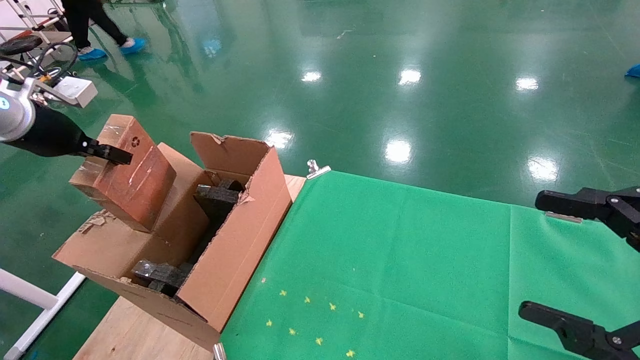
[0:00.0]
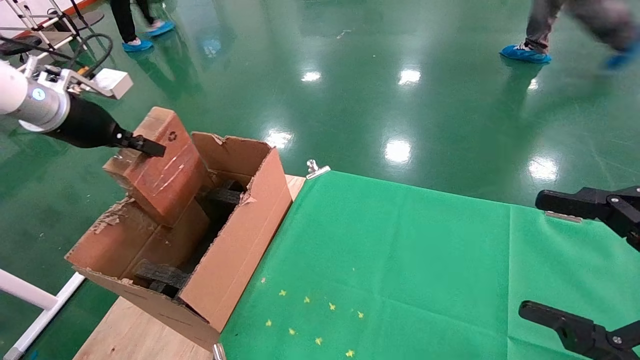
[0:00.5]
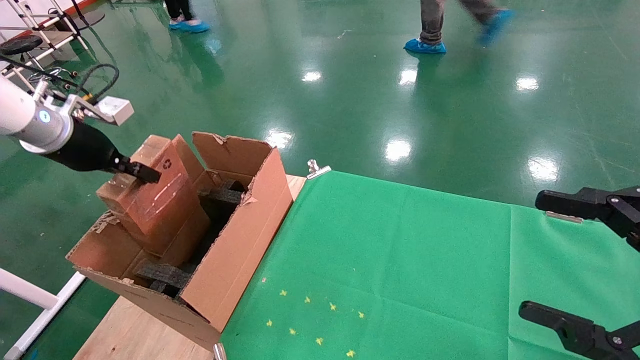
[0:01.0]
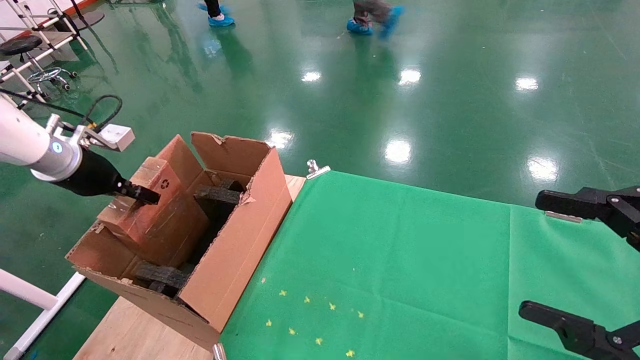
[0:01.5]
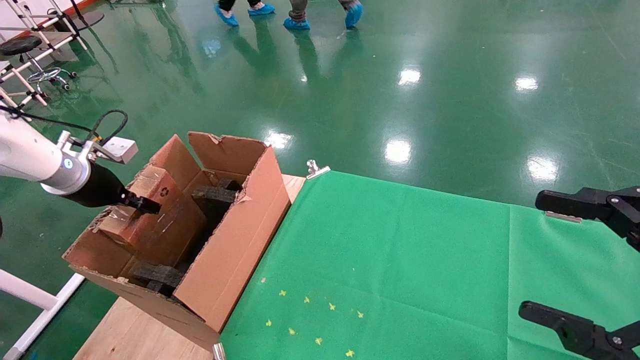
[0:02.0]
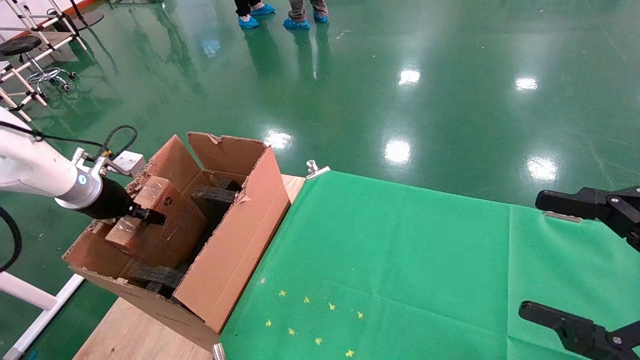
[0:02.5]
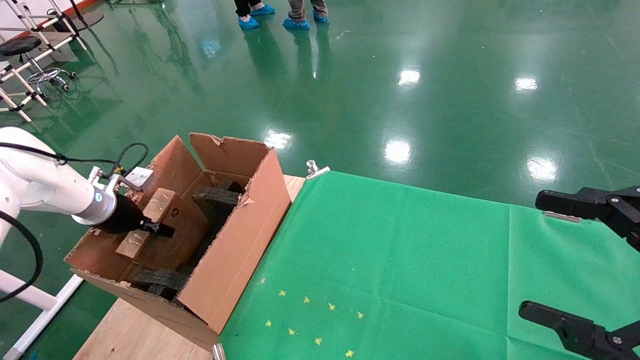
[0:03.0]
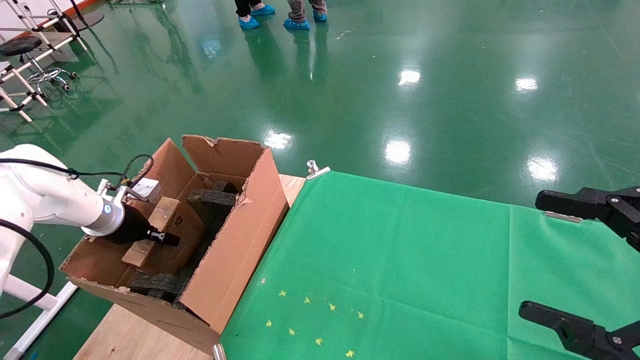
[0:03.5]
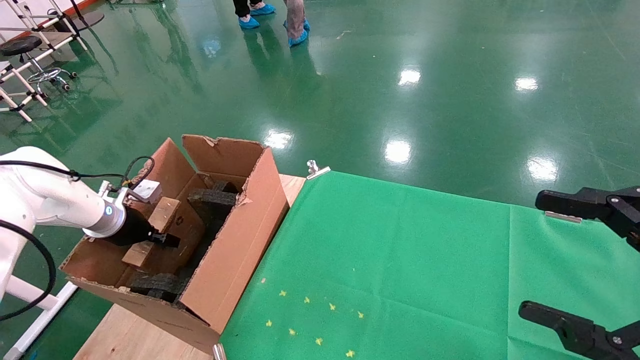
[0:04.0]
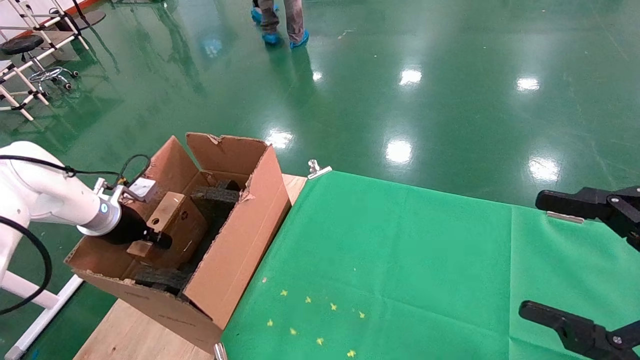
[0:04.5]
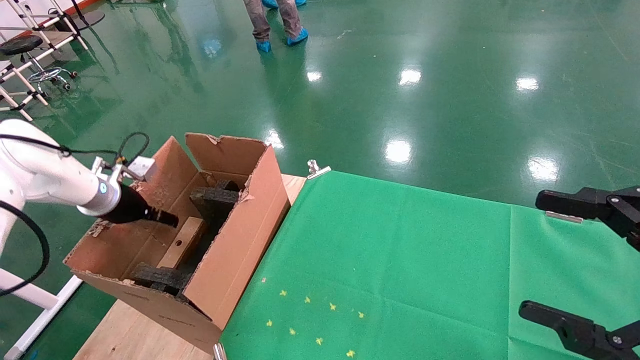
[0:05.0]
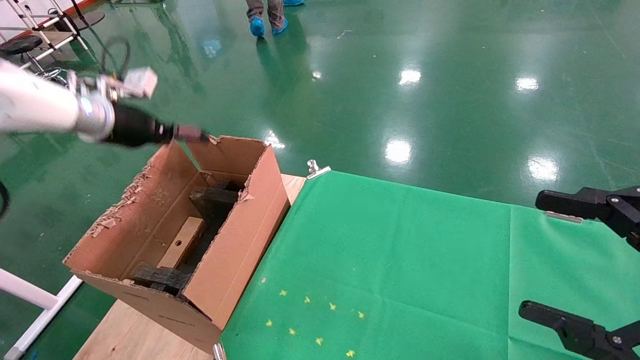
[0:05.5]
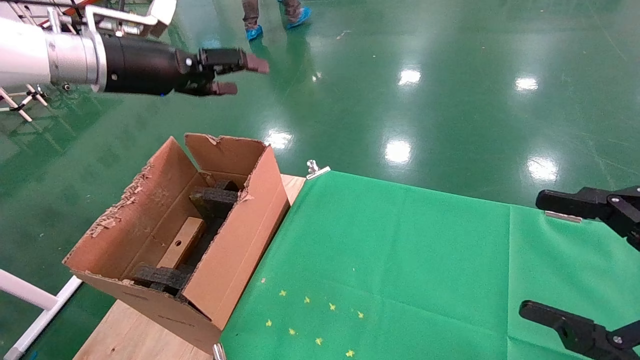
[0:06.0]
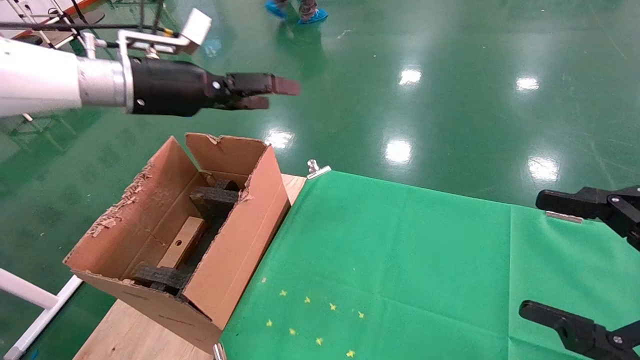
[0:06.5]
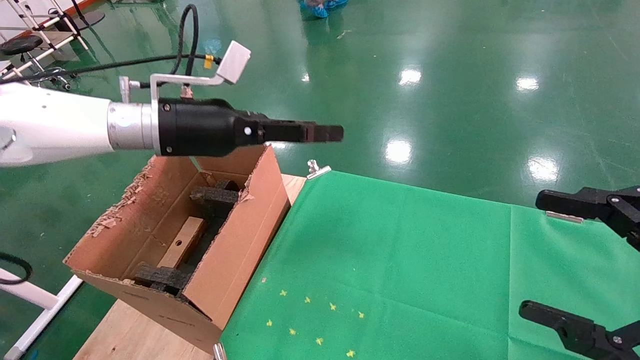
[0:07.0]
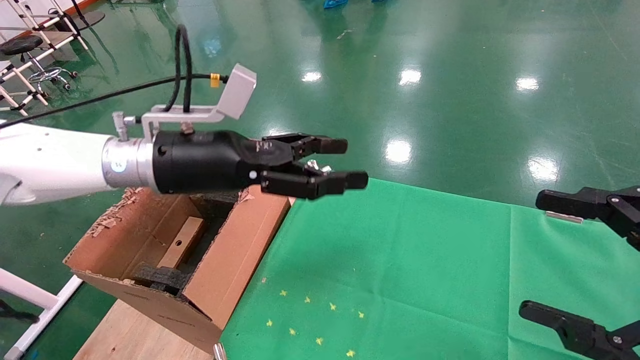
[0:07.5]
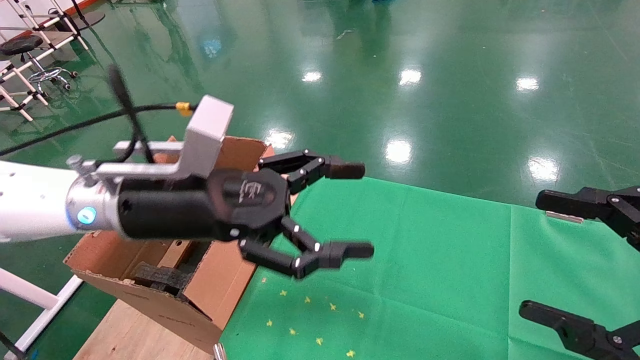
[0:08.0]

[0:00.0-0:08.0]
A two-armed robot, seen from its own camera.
Task of the whole recording: using a robotic arm to pick up a cardboard box and palace it the carton.
Step, 0:00.0 to 0:05.5: Place the mouse and the power cord paper box into the container.
0:00.0 to 0:02.0: The left gripper heads downward, covering approximately 10 cm.
0:02.0 to 0:04.0: The left gripper heads downward, covering roughly 10 cm.
0:04.0 to 0:06.0: The left gripper heads upward and to the right, covering some 30 cm, and opens up.
0:06.0 to 0:08.0: The left gripper heads to the right, downward and backward, covering about 20 cm.

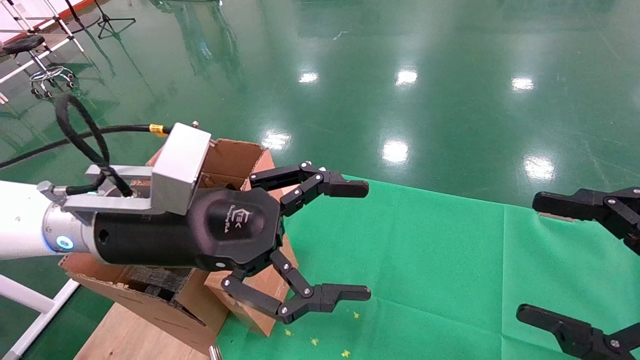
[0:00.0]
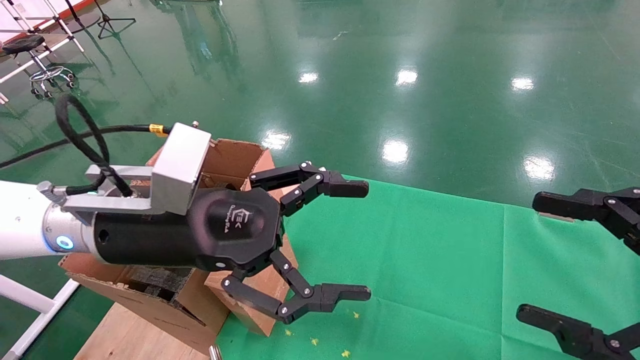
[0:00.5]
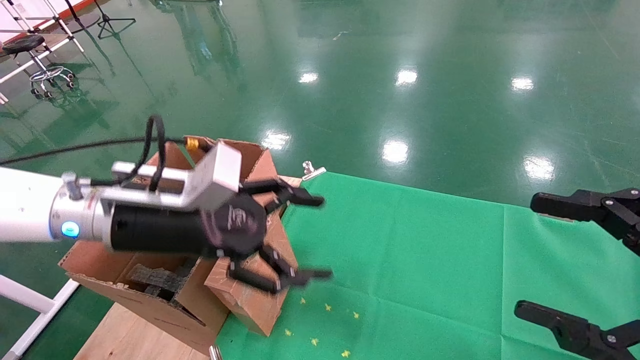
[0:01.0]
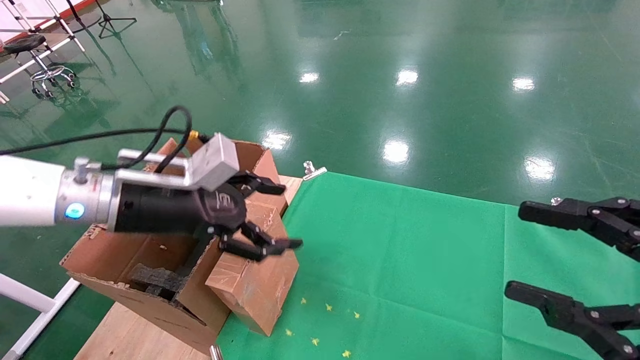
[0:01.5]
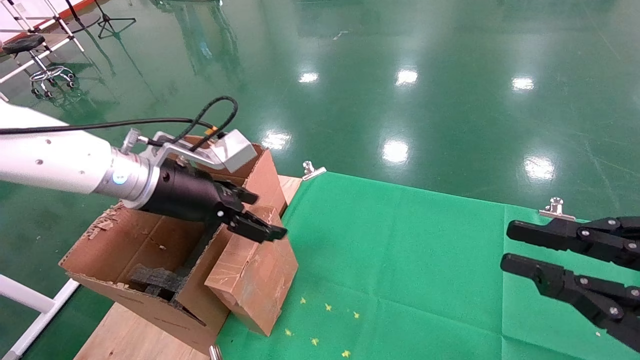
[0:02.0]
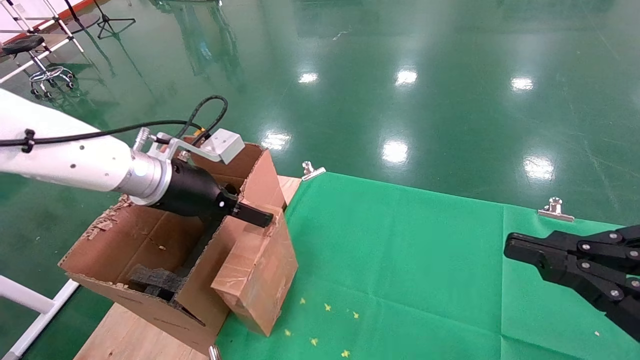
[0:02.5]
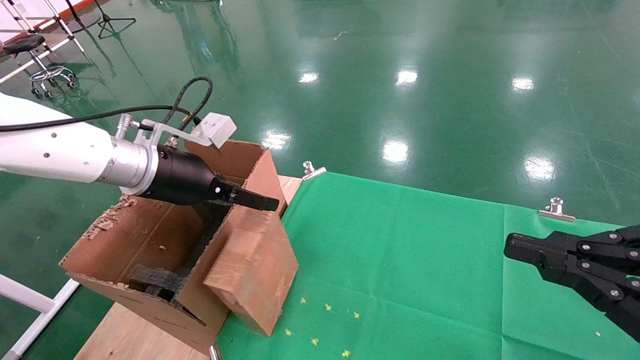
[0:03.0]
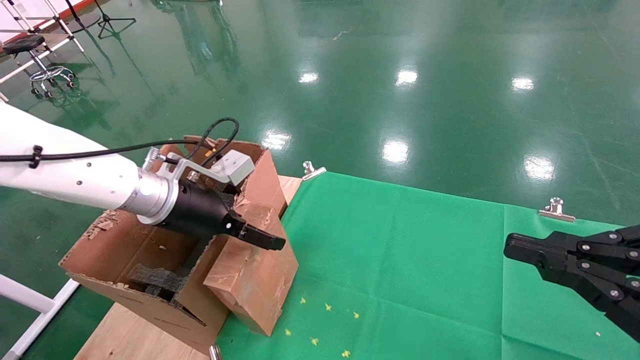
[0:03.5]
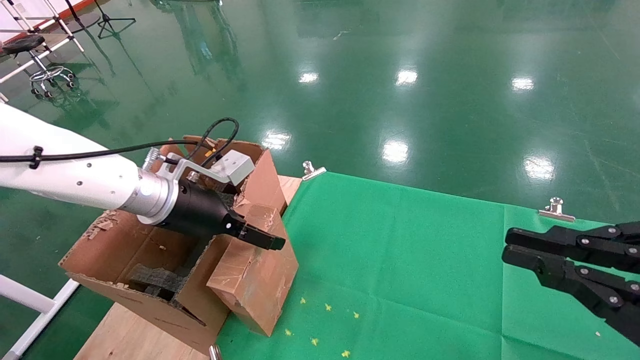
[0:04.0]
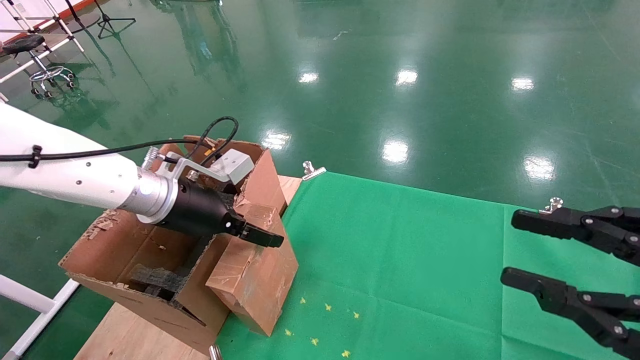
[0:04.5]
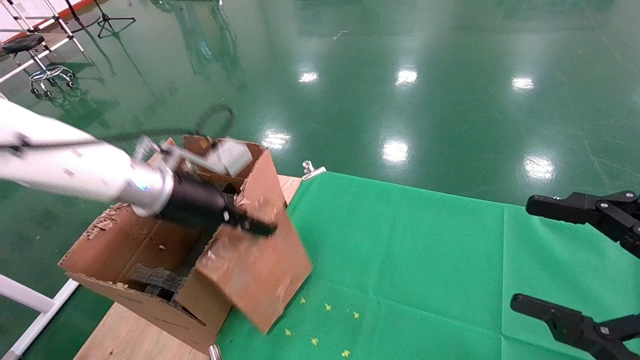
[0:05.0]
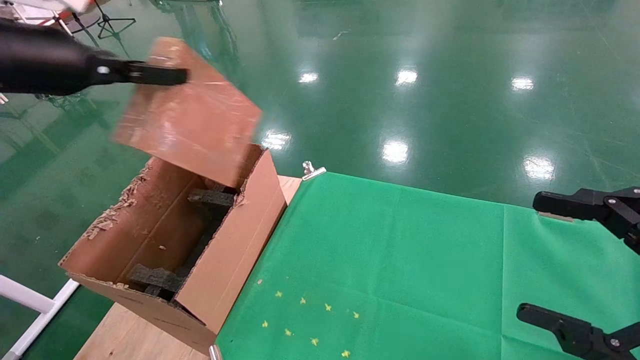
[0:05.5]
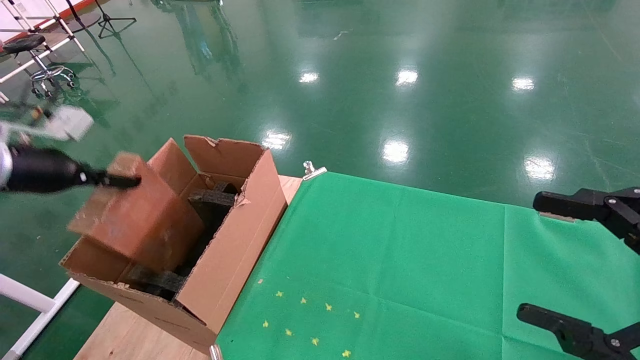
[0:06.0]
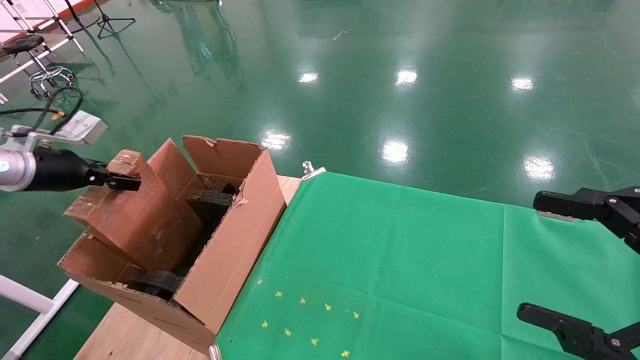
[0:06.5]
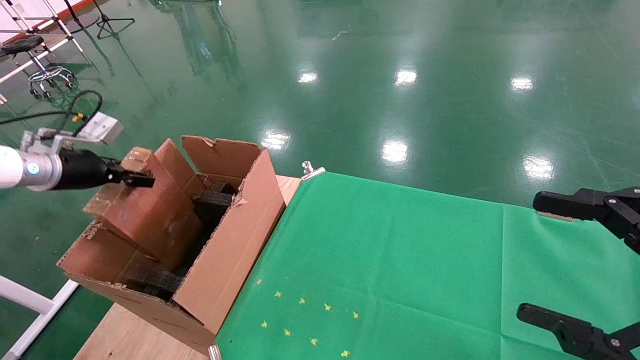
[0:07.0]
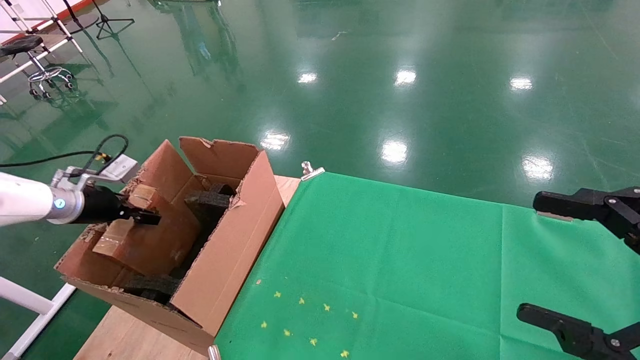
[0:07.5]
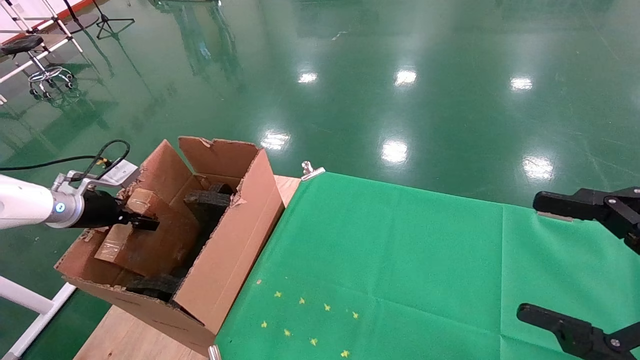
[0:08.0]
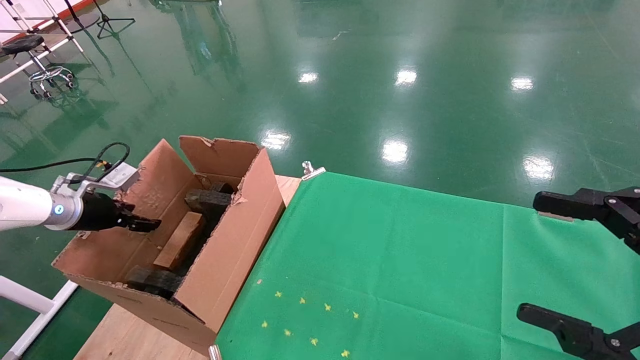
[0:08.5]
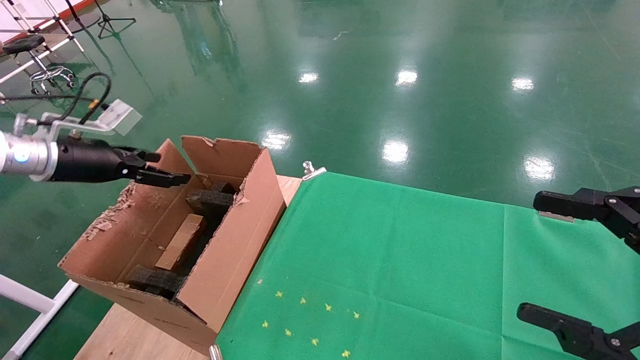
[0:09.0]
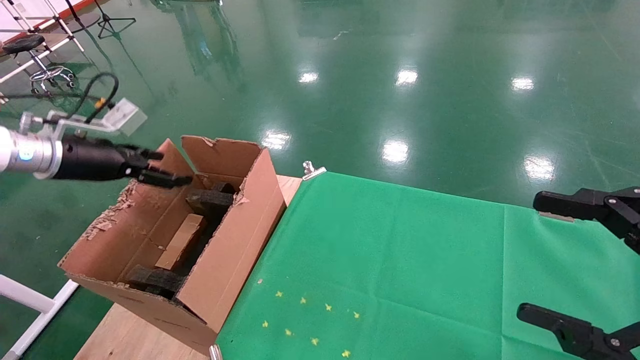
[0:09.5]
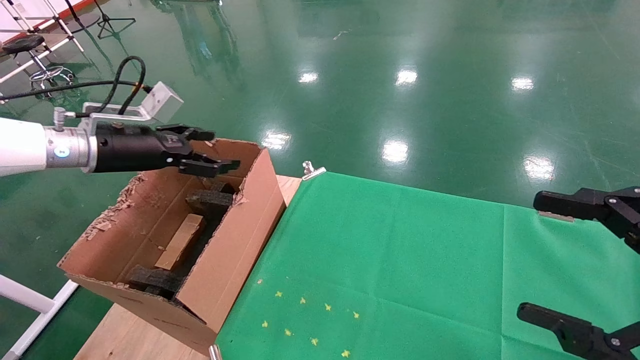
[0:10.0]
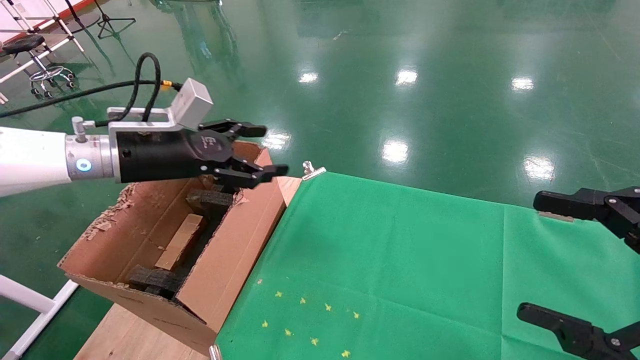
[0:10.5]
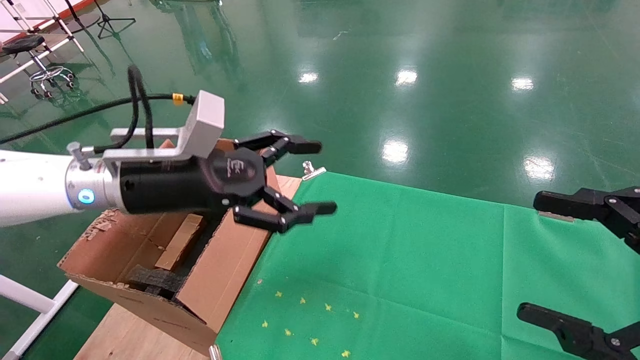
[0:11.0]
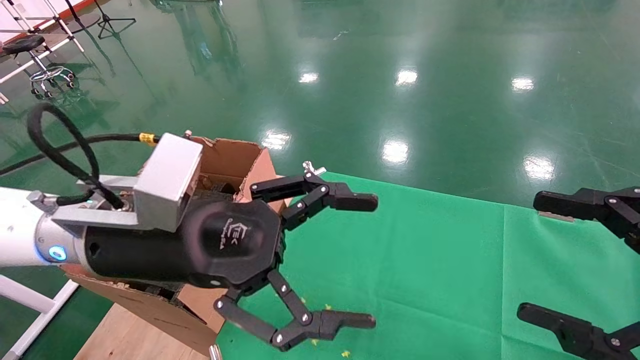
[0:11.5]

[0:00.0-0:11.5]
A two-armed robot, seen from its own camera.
Task of the whole recording: using a robotic arm to pick up a cardboard box and palace it the carton.
Step, 0:01.0 to 0:05.0: Pick up the mouse and the power cord paper box.
Step, 0:05.5 to 0:09.0: Place the mouse and the power cord paper box into the container.
0:00.0 to 0:02.0: The left gripper moves forward and to the left, about 10 cm, while the right gripper closes up.
0:02.0 to 0:04.0: The grippers make only small movements.
0:04.0 to 0:06.0: The left gripper moves to the left, some 25 cm, and closes. The right gripper opens.
0:06.0 to 0:07.5: The left gripper is displaced downward and forward by approximately 15 cm.
0:07.5 to 0:09.5: The left gripper travels upward and to the right by approximately 10 cm, and opens.
0:09.5 to 0:11.5: The left gripper is displaced to the right and backward by about 30 cm.
